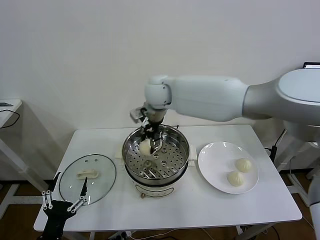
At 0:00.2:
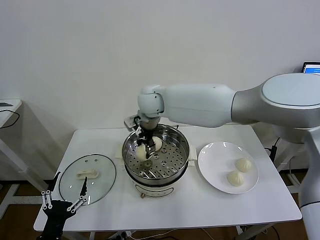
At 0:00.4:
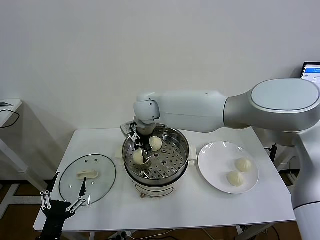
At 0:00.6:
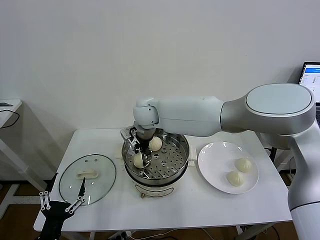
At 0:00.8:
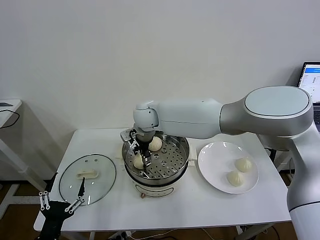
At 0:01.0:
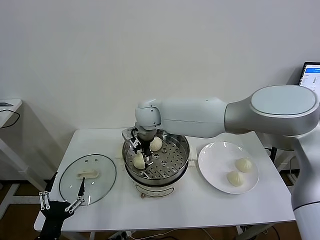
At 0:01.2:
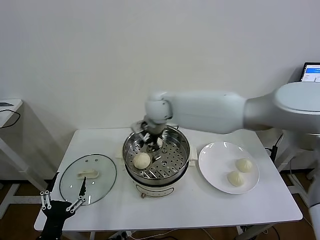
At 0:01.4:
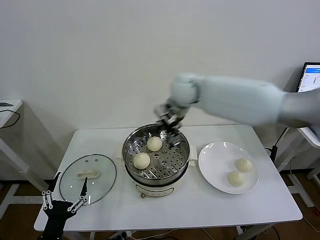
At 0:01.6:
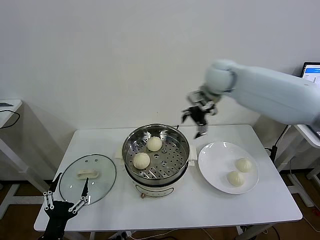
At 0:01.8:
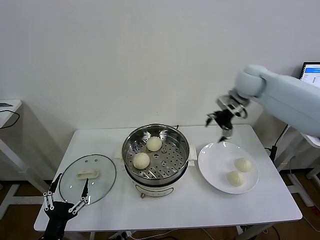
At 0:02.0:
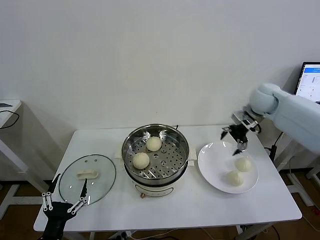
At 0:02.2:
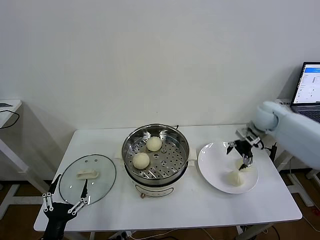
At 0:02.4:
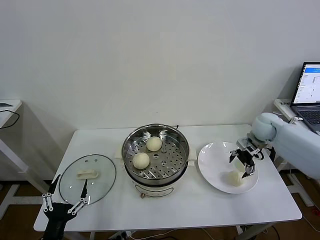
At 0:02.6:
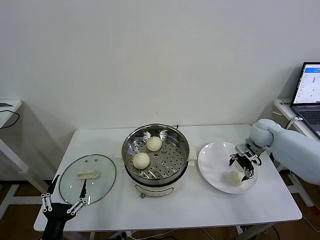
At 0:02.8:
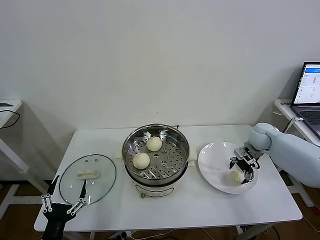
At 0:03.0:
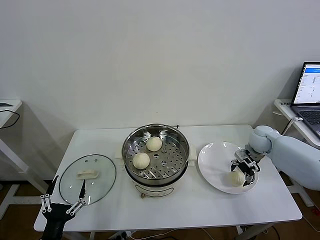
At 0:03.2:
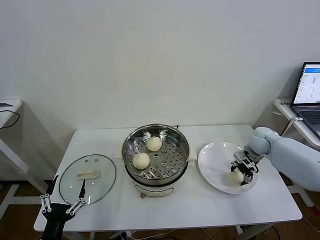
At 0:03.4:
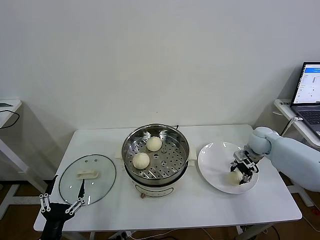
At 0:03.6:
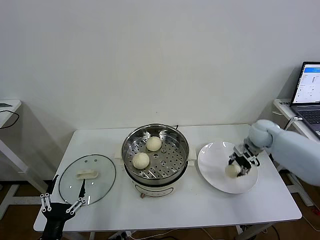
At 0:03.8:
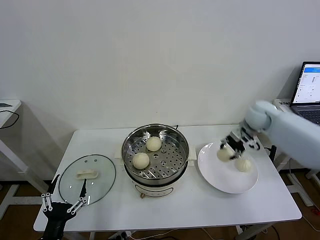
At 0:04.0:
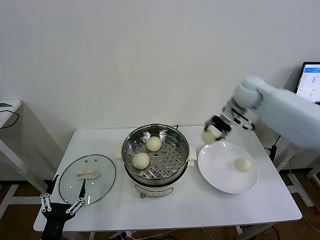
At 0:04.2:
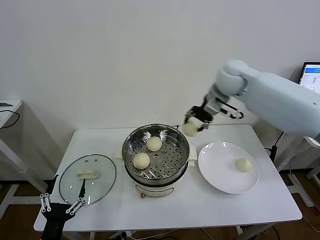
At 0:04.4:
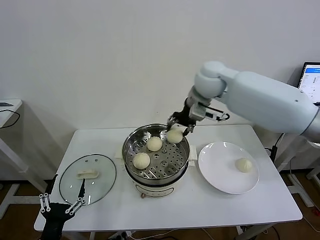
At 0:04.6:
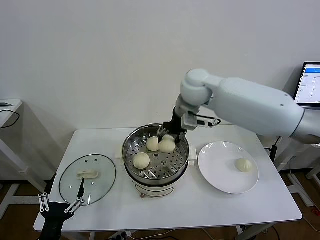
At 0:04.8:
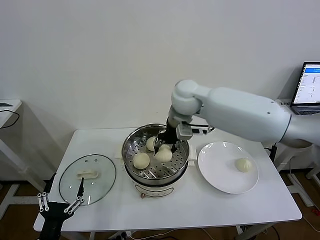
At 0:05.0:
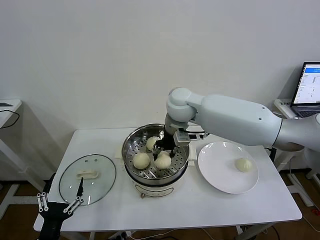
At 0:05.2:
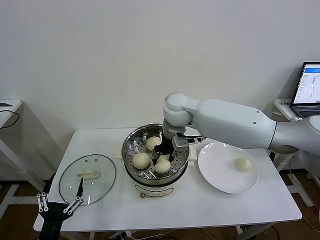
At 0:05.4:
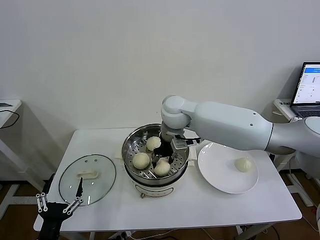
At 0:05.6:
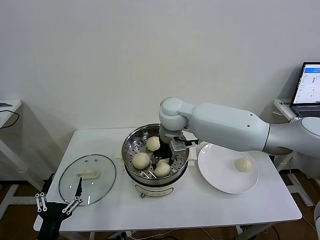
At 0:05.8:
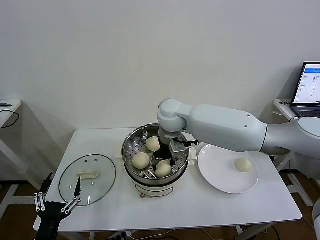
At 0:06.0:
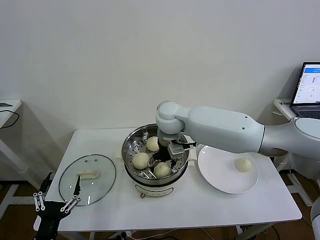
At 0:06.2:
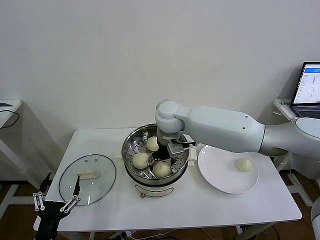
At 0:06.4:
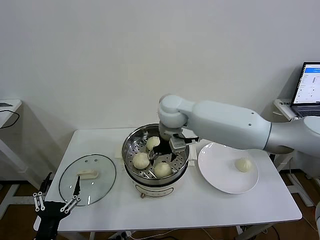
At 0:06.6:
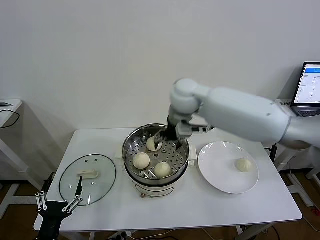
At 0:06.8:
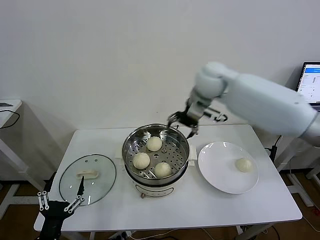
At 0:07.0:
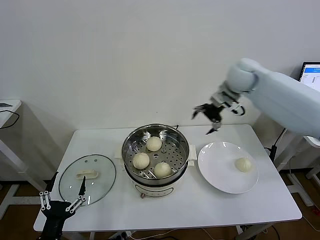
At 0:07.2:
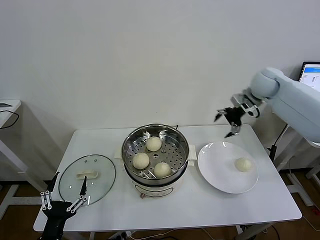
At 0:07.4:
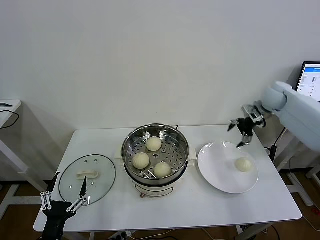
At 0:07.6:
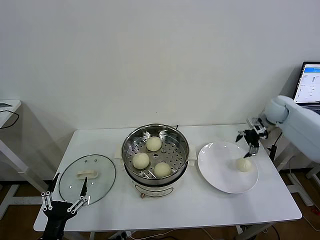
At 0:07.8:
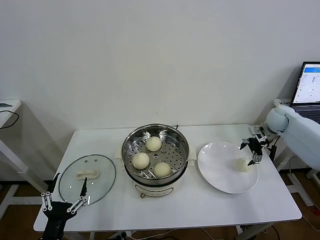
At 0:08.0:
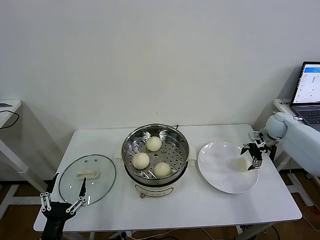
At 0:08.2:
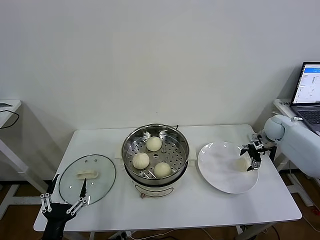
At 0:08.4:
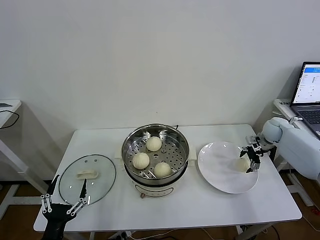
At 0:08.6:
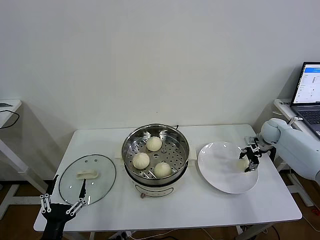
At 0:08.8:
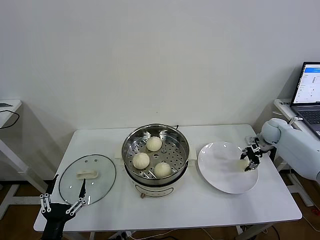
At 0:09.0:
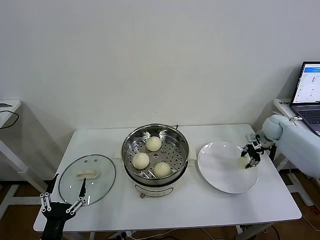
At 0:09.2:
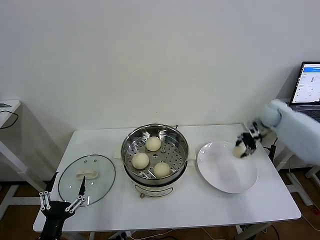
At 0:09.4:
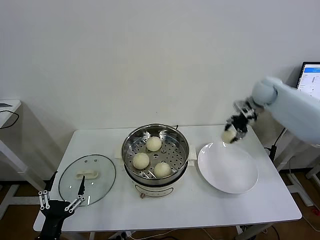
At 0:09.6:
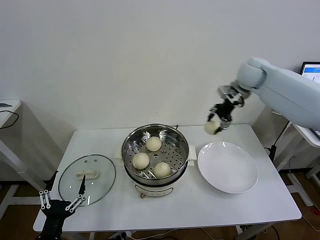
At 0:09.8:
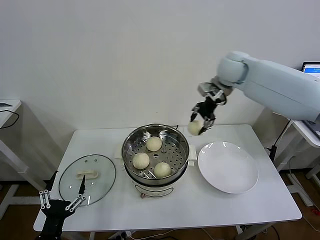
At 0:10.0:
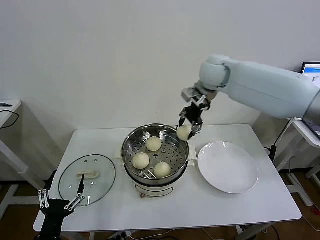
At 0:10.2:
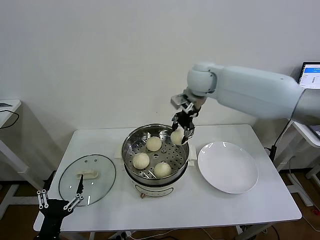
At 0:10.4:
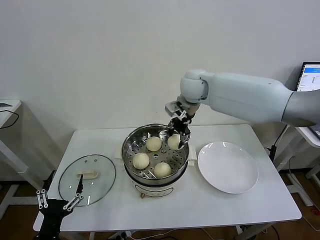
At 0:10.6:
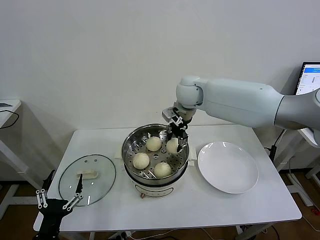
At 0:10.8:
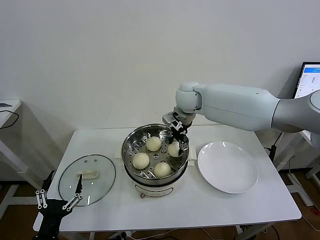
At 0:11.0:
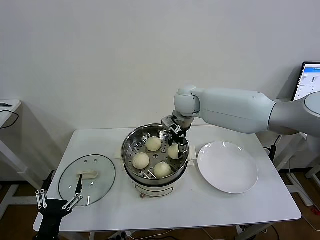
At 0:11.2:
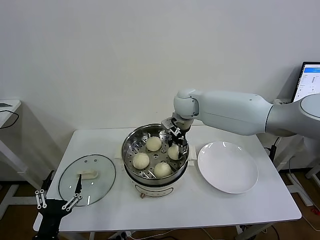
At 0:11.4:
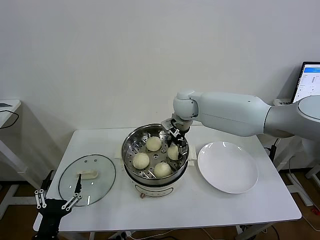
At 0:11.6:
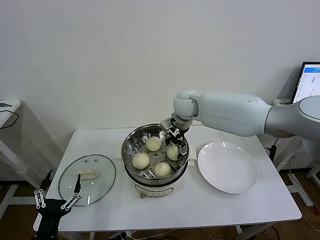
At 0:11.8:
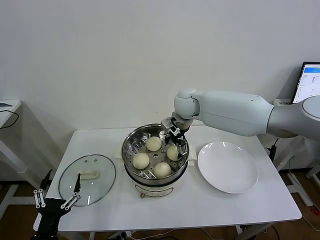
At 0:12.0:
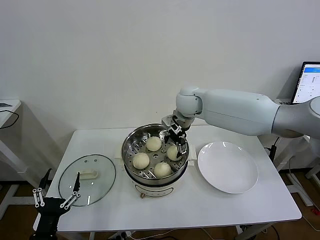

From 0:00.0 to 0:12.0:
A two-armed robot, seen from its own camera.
Task of the whole recording: take steamed baozi put them in steamer then cover it.
Step, from 0:01.0 to 0:03.2: Grasp the baozi in the plate with right gripper.
Step, from 0:03.4 to 0:06.0: Place the baozi on the steamer with right gripper.
Step, from 0:06.2 to 0:08.6: Grasp the baozi in the plate with right gripper.
Step, from 0:08.8 to 0:11.6: Place the baozi on the steamer with right gripper.
From 0:00.0 to 0:01.6: The right gripper goes some 30 cm to the right, and opens its fingers.
From 0:01.6 to 0:03.0: The right gripper heads downward and to the right, covering about 25 cm.
From 0:03.0 to 0:04.4: The right gripper goes roughly 35 cm to the left and upward, and closes its fingers.
From 0:04.4 to 0:06.0: The right gripper goes approximately 15 cm downward and to the left, and opens.
From 0:06.0 to 0:07.6: The right gripper moves to the right, approximately 40 cm.
From 0:07.6 to 0:09.0: The right gripper closes up.
From 0:09.0 to 0:10.4: The right gripper goes roughly 40 cm to the left and upward.
From 0:10.4 to 0:12.0: The right gripper opens.

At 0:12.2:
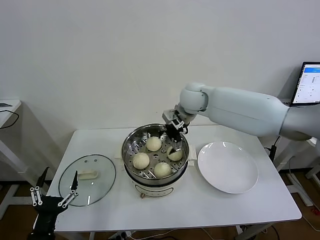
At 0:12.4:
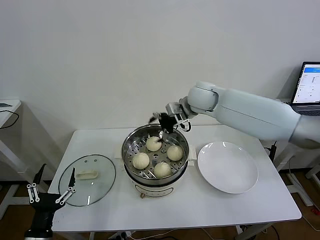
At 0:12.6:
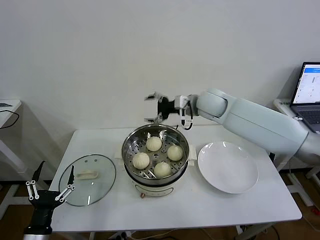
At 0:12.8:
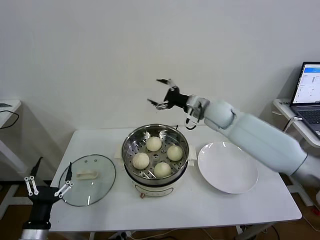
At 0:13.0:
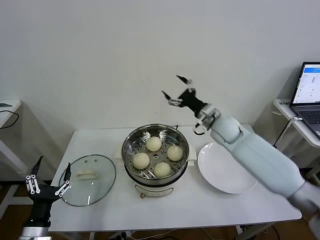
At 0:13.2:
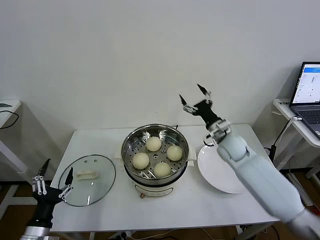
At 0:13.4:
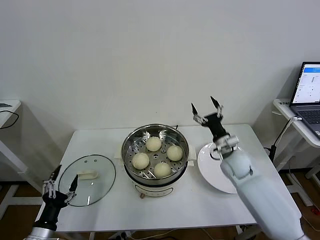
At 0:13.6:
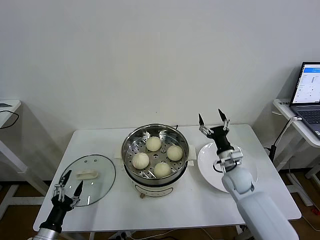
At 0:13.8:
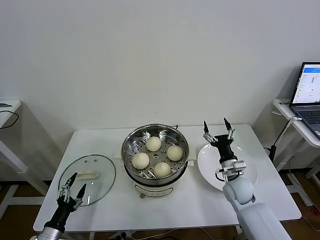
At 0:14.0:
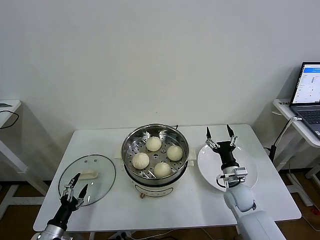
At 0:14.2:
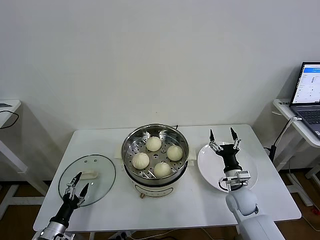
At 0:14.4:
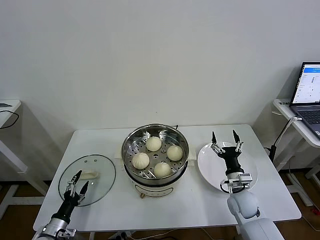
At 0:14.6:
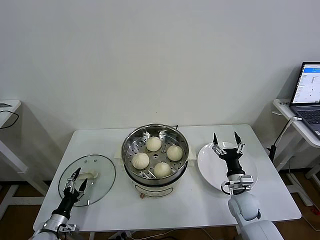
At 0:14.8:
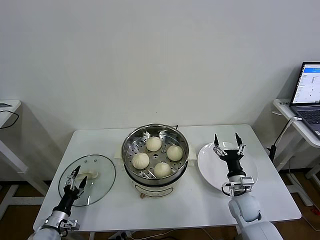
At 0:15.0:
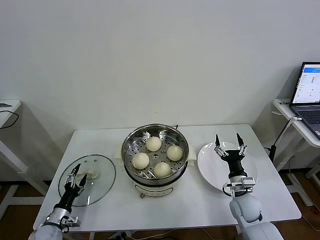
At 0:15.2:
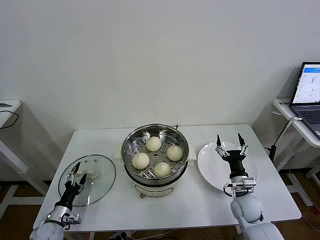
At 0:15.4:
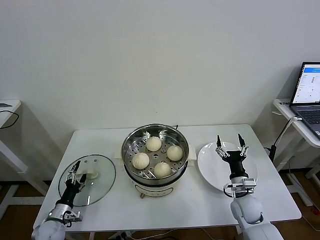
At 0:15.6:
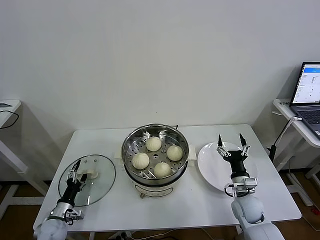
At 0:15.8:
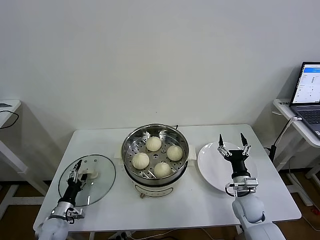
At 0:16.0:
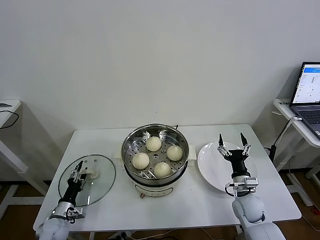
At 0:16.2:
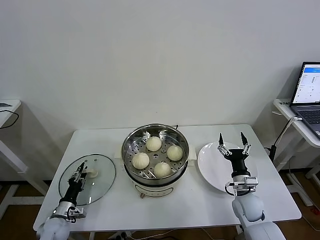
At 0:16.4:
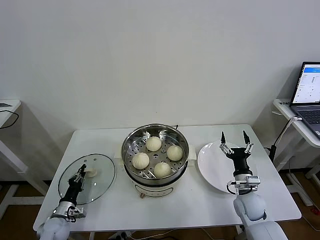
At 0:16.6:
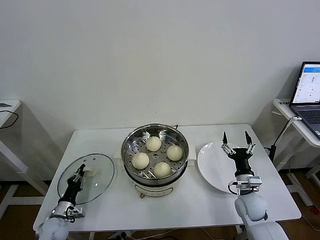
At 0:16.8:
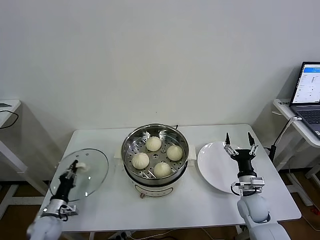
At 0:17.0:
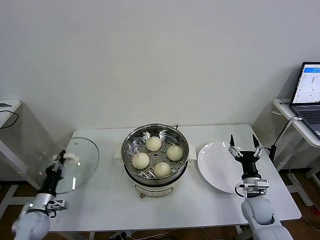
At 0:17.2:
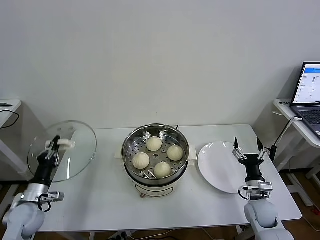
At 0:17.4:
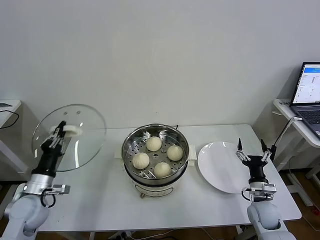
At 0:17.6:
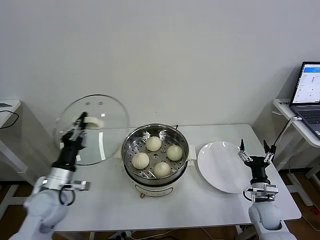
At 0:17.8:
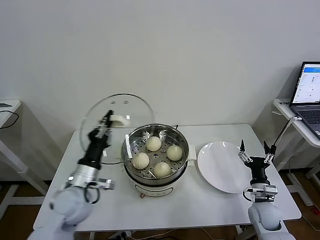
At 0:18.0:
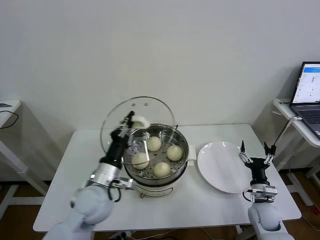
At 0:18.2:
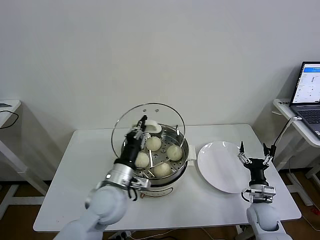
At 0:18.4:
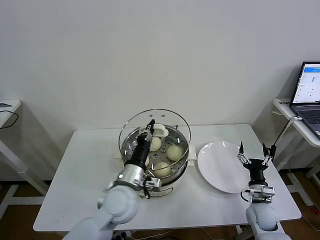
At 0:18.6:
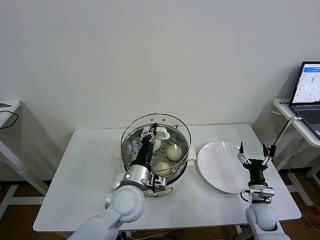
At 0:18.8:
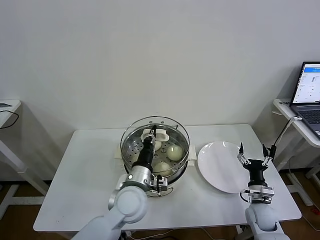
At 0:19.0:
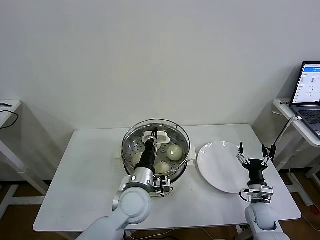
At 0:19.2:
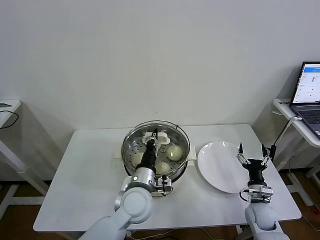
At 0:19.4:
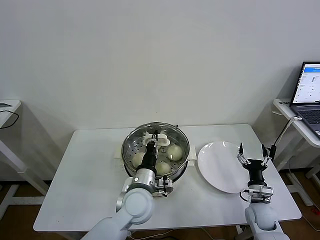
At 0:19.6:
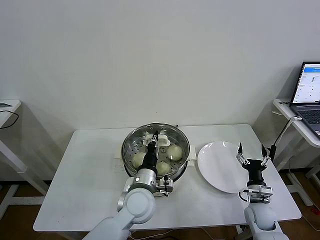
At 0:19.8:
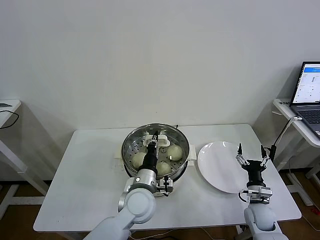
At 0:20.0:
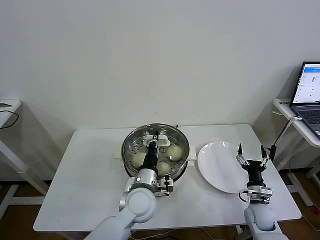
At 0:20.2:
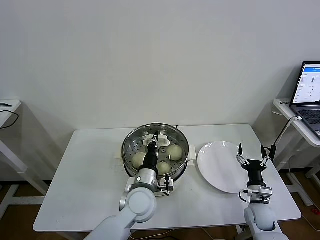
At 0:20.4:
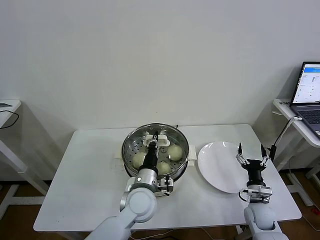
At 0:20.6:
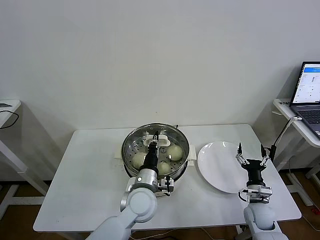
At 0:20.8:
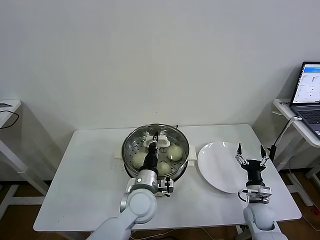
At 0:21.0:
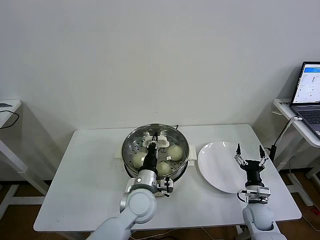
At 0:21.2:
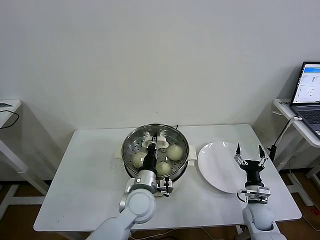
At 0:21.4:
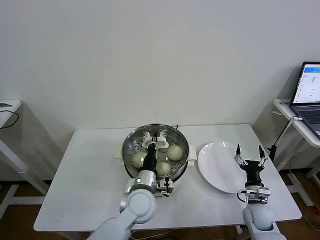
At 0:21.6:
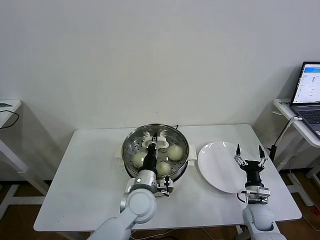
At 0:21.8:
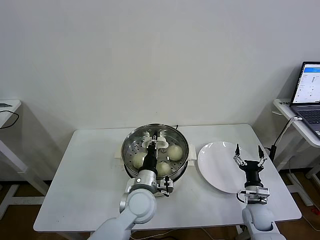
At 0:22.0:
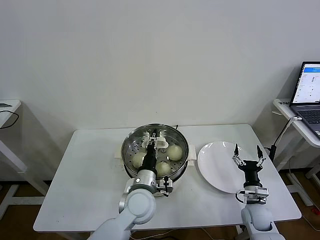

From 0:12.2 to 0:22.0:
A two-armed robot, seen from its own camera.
Task of the whole recording: take steamed baozi put them in steamer then cover it.
Step, from 0:12.2 to 0:16.8: Grasp the pot lid with left gripper.
From 0:12.2 to 0:13.6: The left gripper is displaced downward and to the left by some 10 cm, while the right gripper moves downward, to the right and backward, about 35 cm.
From 0:13.6 to 0:15.0: The left gripper heads forward and downward, covering roughly 10 cm, while the right gripper goes about 10 cm backward and downward.
From 0:15.0 to 0:16.4: The left gripper closes.
From 0:16.4 to 0:17.8: The right gripper heads to the right, covering some 5 cm. Meanwhile the left gripper is displaced upward and to the right by about 30 cm.
From 0:17.8 to 0:19.2: The left gripper heads to the right, covering approximately 20 cm.
From 0:19.2 to 0:20.6: The grippers stay close to where they were, moving slightly.
From 0:20.6 to 0:22.0: The left gripper opens its fingers.
